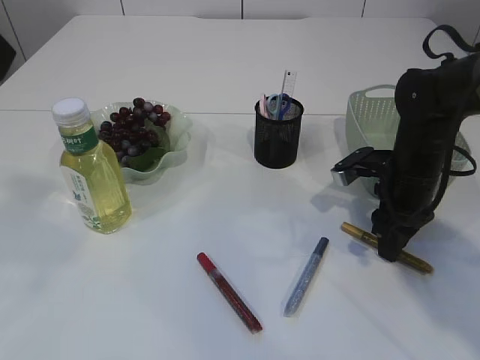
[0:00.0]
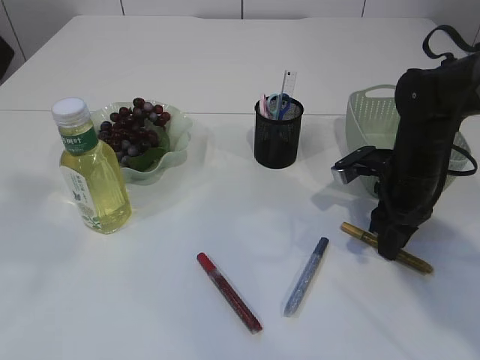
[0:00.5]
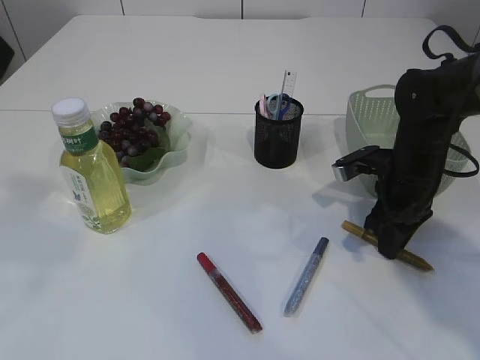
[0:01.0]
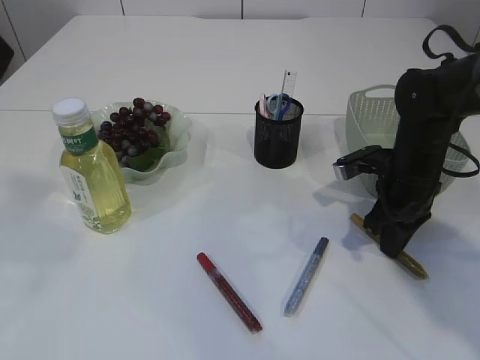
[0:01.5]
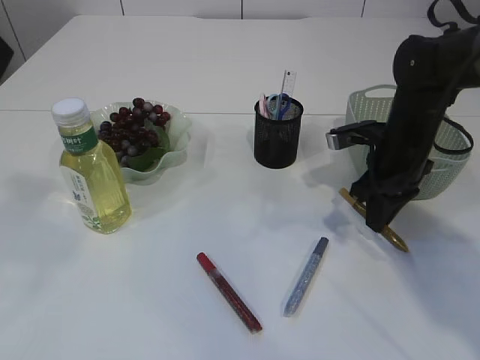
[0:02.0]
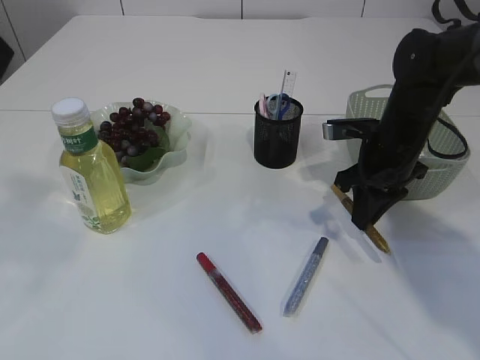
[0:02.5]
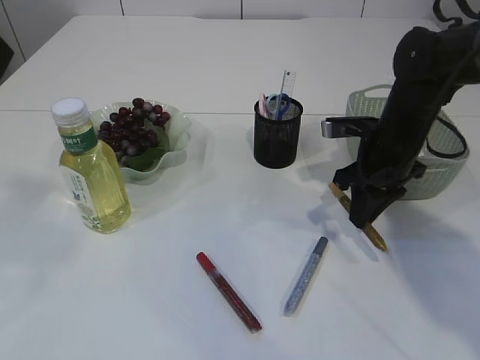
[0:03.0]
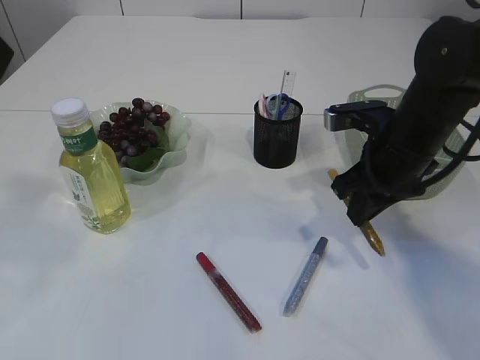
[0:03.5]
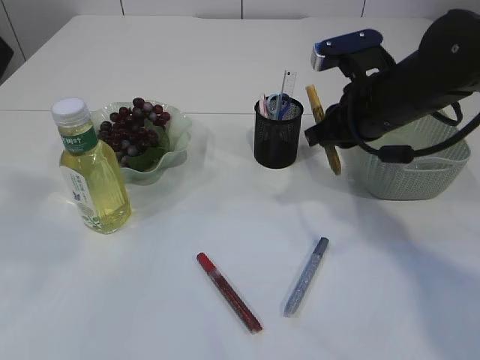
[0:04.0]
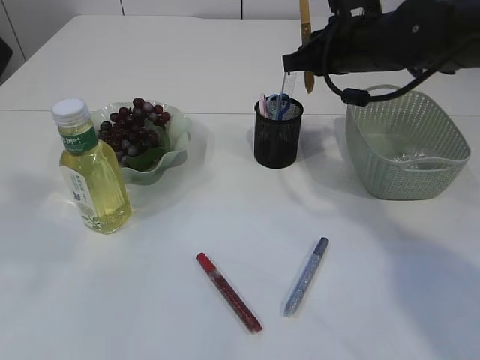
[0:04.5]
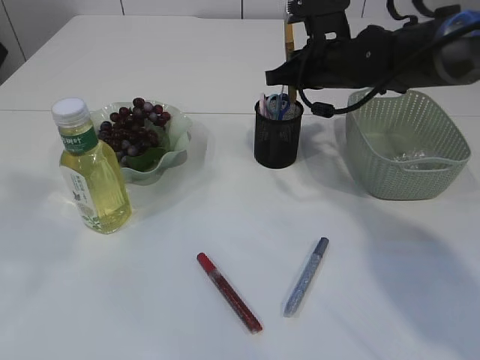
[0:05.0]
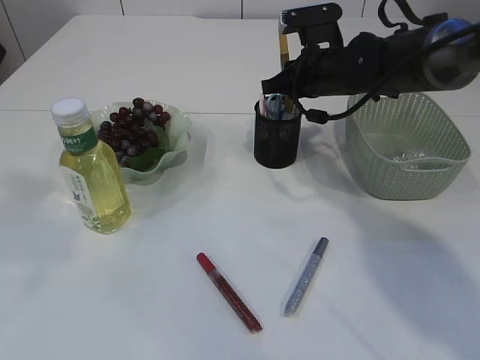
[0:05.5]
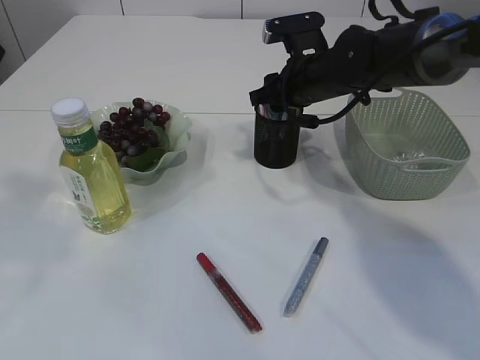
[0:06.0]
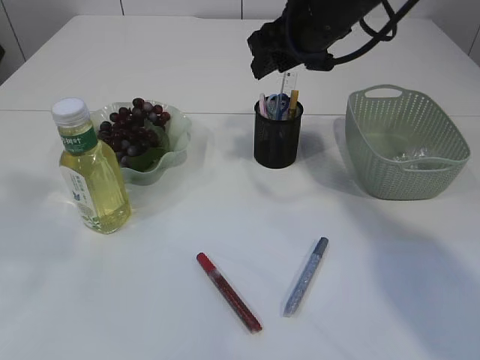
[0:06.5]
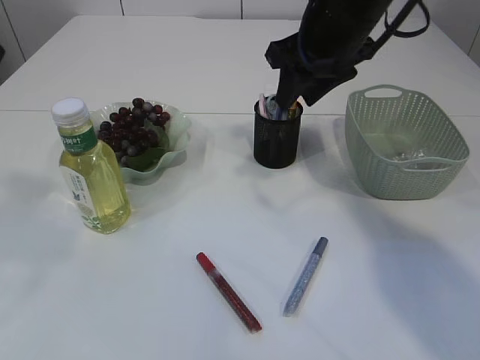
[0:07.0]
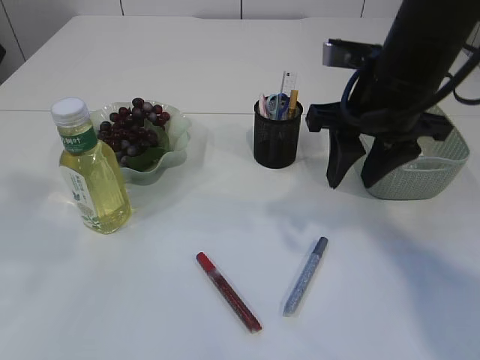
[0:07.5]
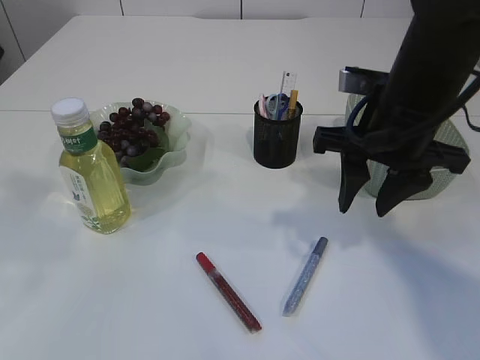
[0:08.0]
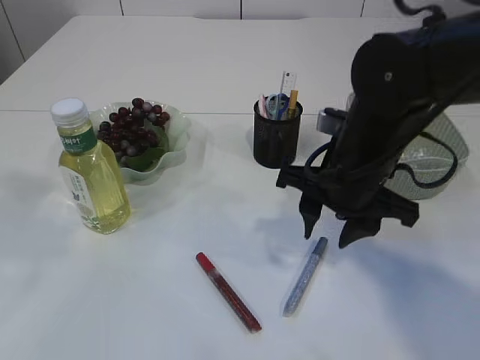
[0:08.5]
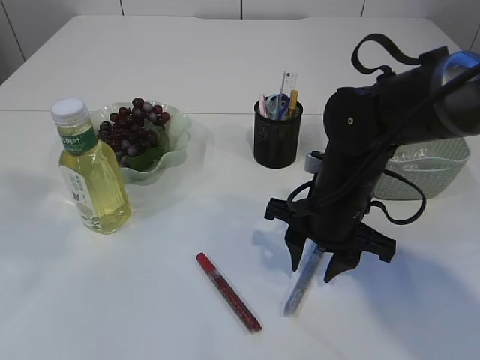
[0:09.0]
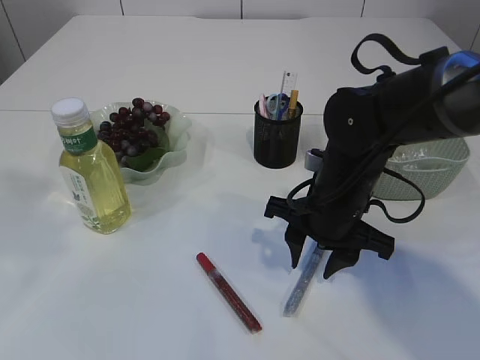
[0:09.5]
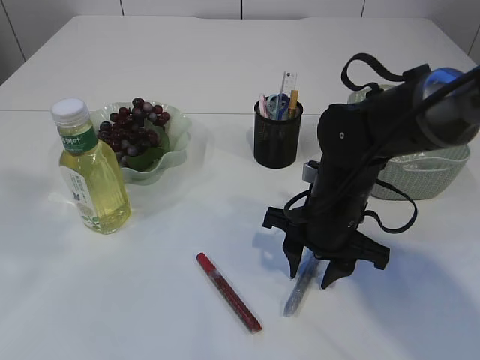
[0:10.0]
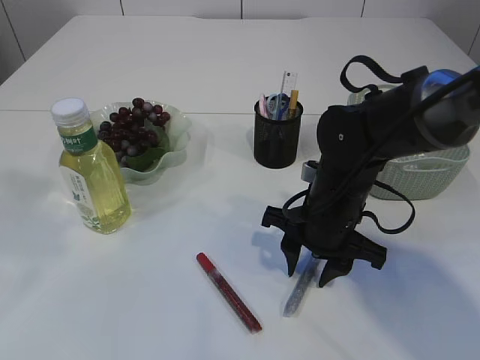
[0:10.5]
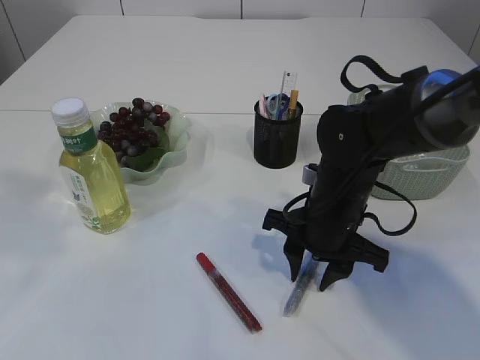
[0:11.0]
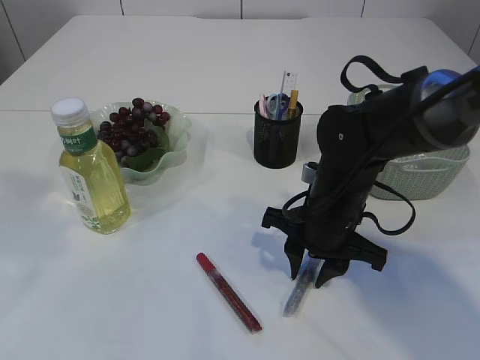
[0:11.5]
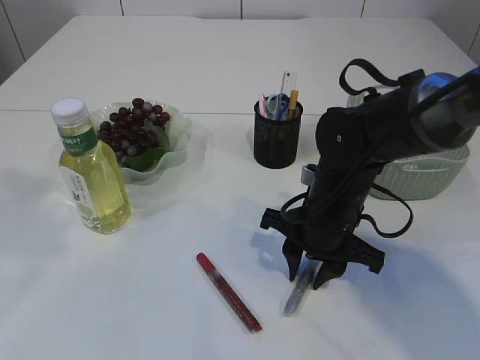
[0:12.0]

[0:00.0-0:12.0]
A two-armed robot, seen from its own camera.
Step, 0.0 to 3.5 s: pick up the yellow glue.
Step, 4.0 to 6.0 s: place the yellow glue into the pen holder.
0.0 to 2.0 s: The right gripper closes.
2.0 to 4.0 s: The right gripper goes approximately 10 cm upward and to the left.
4.0 to 6.0 s: The right gripper is displaced forward by about 10 cm, and opens up.
6.0 to 8.0 s: The right gripper shifts about 15 cm backward.
8.0 to 10.0 s: The right gripper shifts roughly 15 cm downward.
10.0 to 12.0 s: Neither gripper changes place.

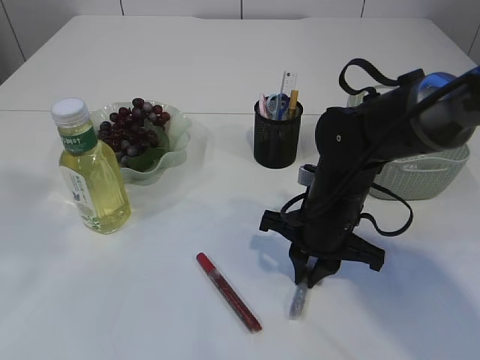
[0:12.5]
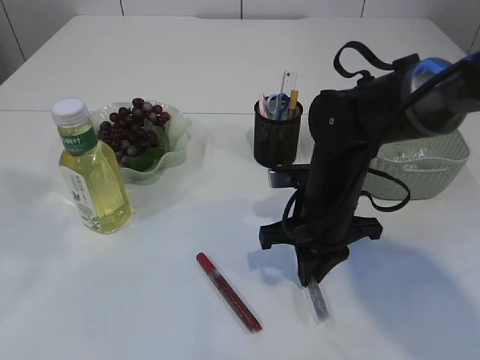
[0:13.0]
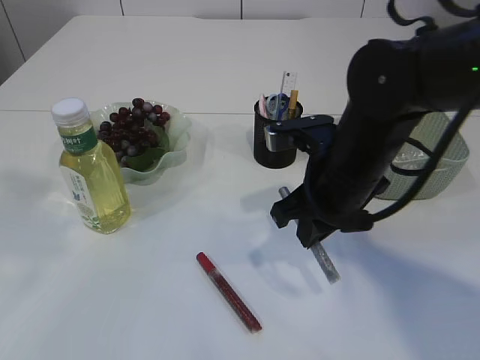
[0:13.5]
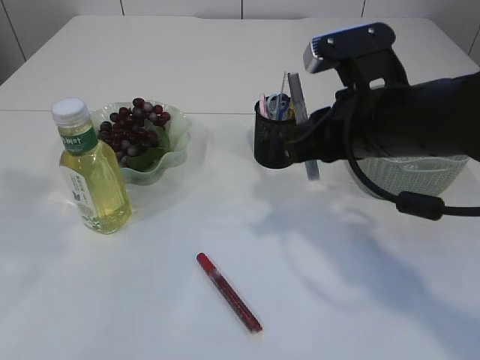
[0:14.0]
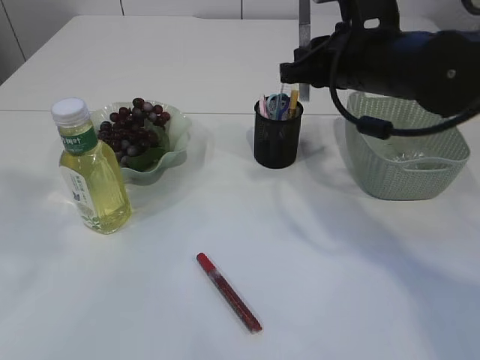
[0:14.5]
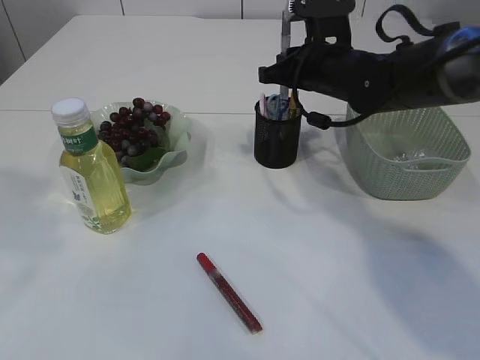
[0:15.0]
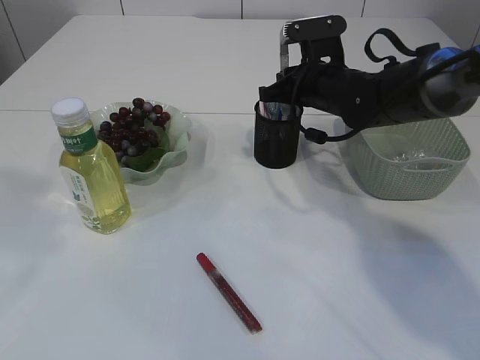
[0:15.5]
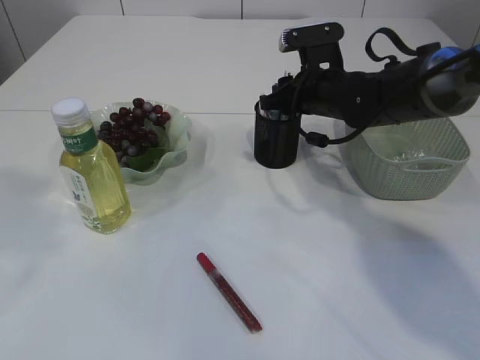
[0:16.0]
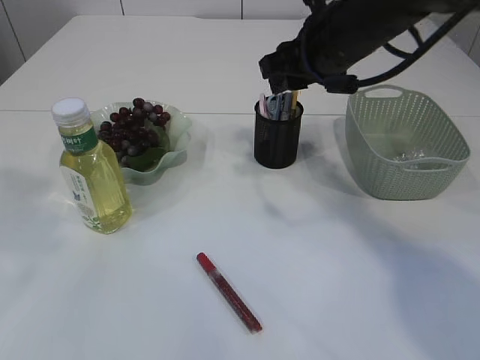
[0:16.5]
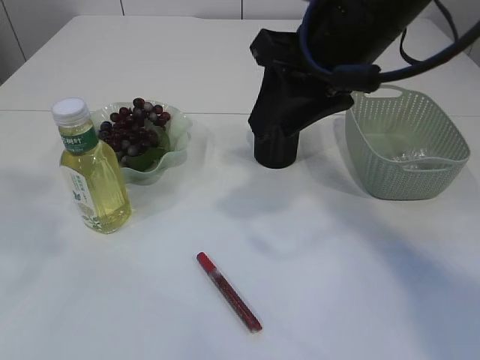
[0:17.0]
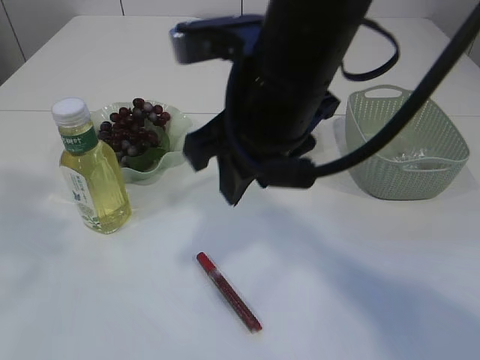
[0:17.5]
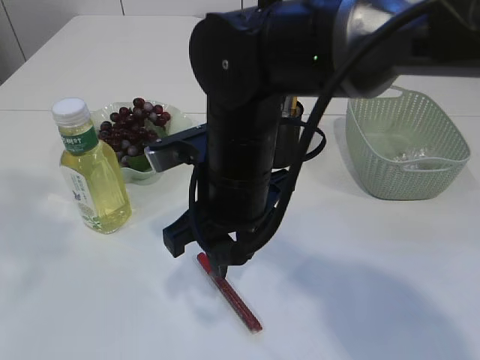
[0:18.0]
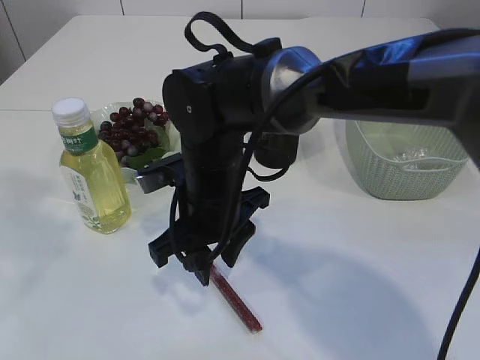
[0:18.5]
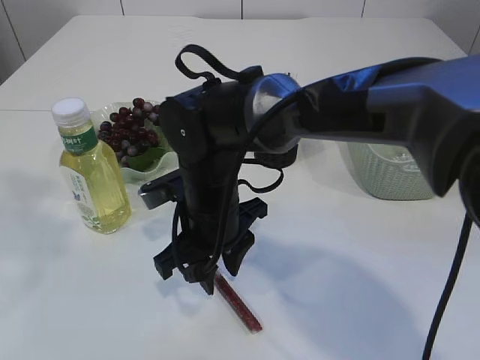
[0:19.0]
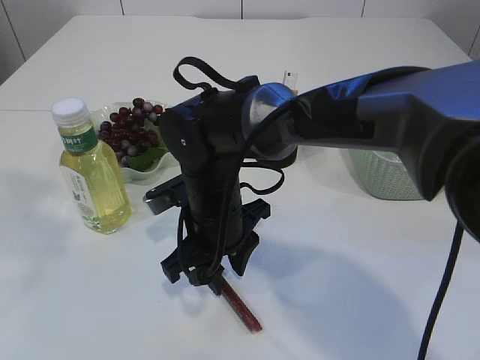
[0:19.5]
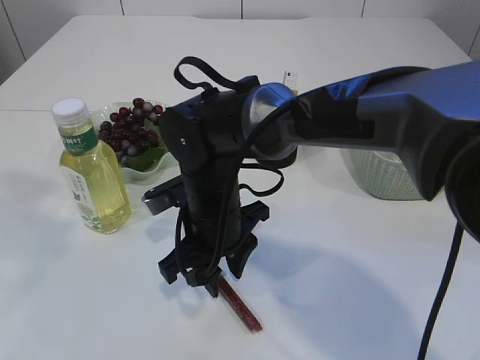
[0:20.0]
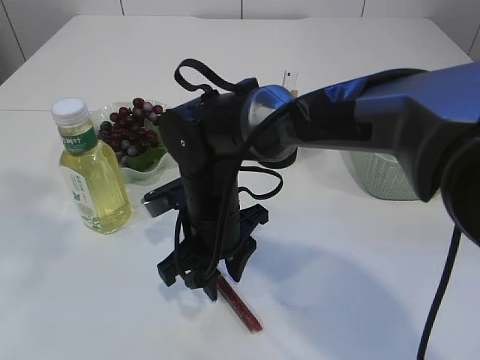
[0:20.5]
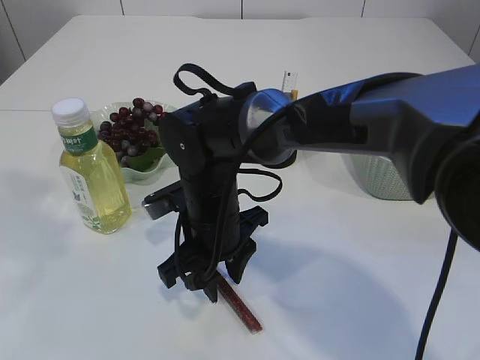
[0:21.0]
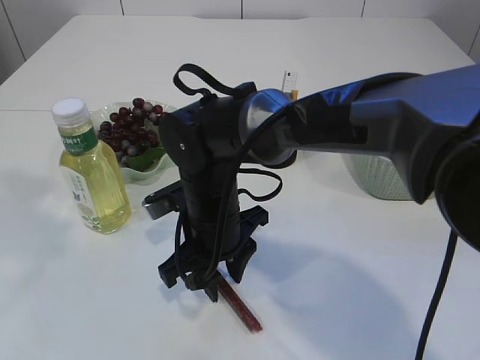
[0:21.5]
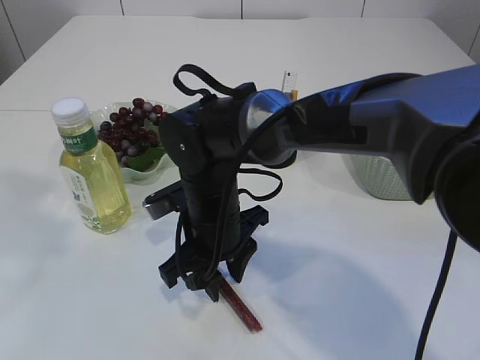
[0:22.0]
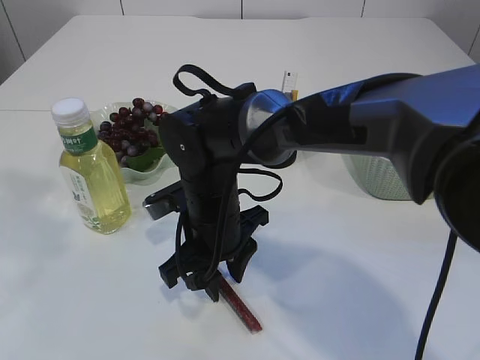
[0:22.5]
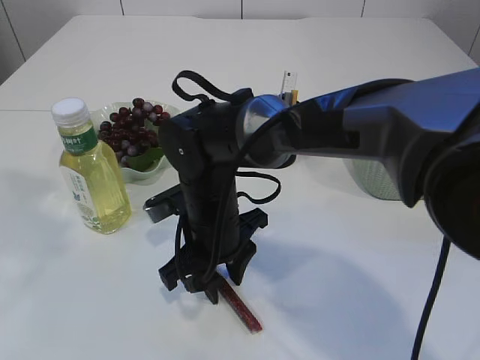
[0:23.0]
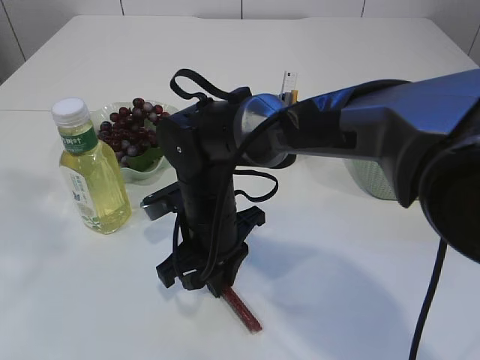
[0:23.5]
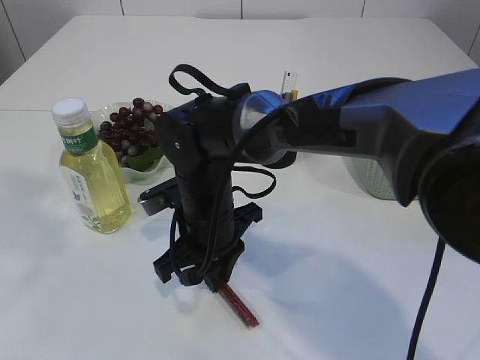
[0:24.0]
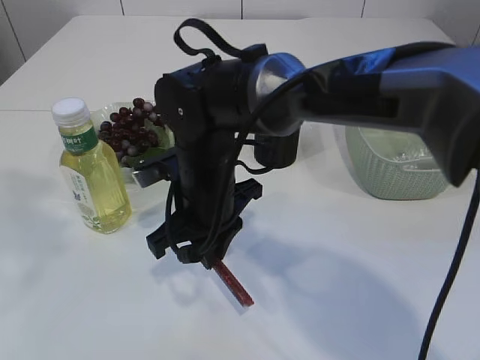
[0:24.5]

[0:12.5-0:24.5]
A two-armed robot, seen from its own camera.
Step, 14.0 to 16.0 s: place the silver glue into the pen holder.
12.5 to 14.5 s: The right gripper goes some 15 cm upward.
14.5 to 16.5 s: The right gripper reaches some 10 cm downward, then returns, and opens up.
16.5 to 18.5 s: The right gripper shifts some 20 cm to the left, downward and backward.
20.5 to 22.5 s: Neither gripper changes place.
22.5 to 24.5 s: The right gripper closes its fingers.

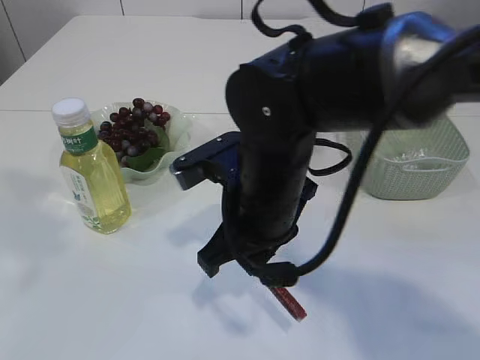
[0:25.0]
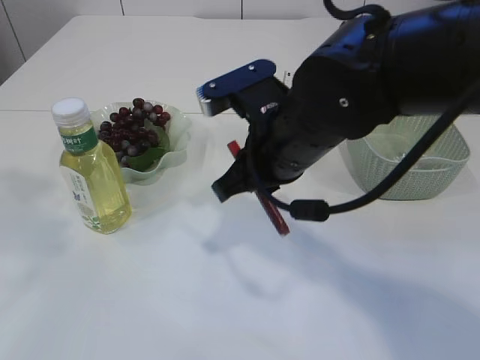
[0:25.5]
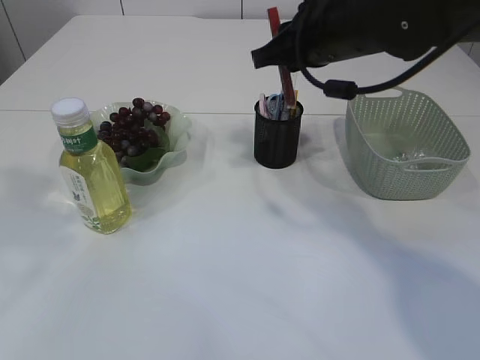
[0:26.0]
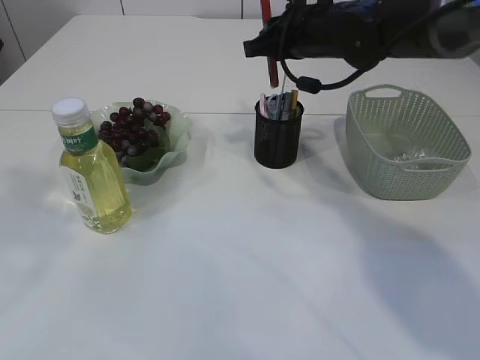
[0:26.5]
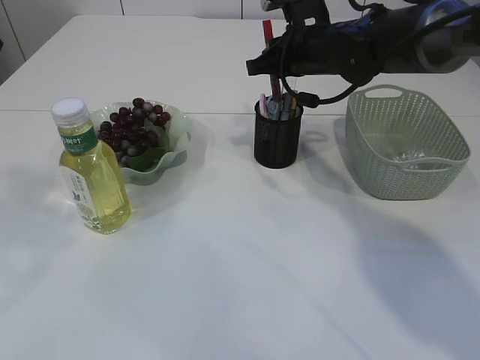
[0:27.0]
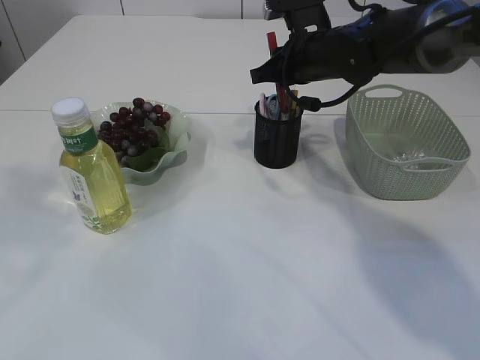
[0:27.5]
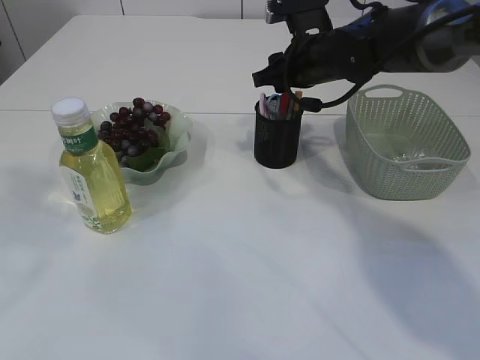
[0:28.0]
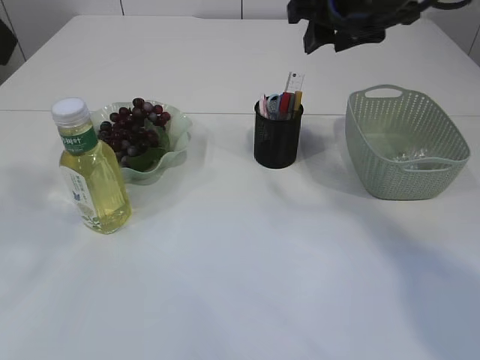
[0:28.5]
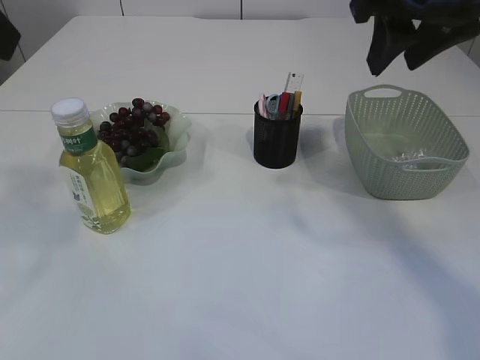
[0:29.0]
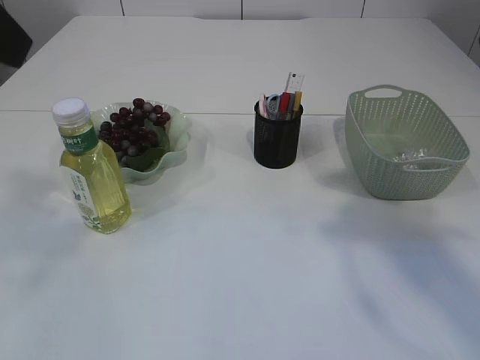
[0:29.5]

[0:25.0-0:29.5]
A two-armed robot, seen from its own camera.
Step, 25.5 to 28.5 s: place the red glue into the pen holder.
25.0 to 27.0 s: The right gripper moves forward and to the right, roughly 20 cm.
27.0 to 29.5 s: The right gripper shifts about 35 cm backward and upward, and opens its fingers, while the left gripper opens up.
